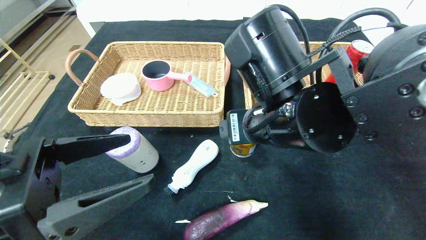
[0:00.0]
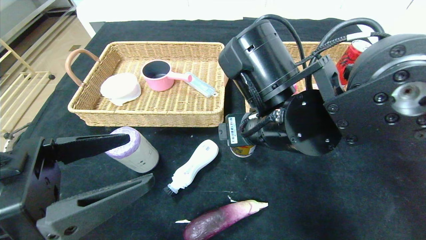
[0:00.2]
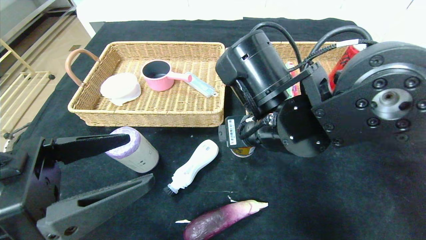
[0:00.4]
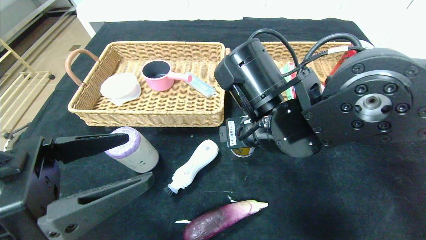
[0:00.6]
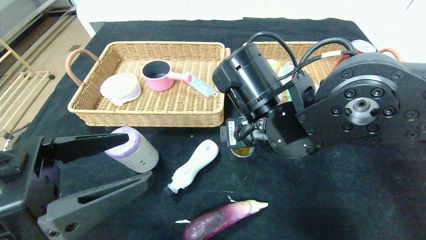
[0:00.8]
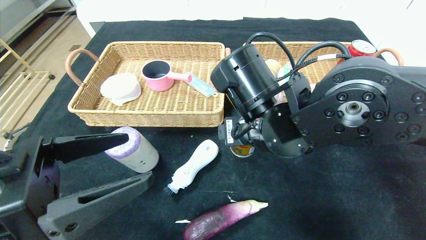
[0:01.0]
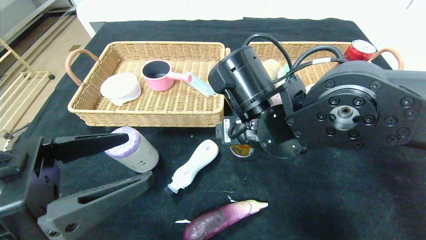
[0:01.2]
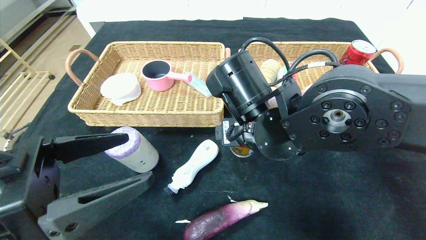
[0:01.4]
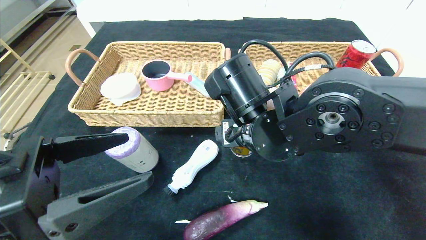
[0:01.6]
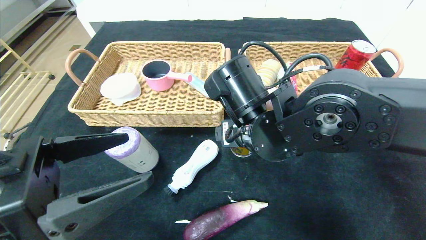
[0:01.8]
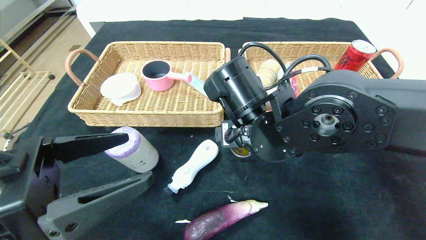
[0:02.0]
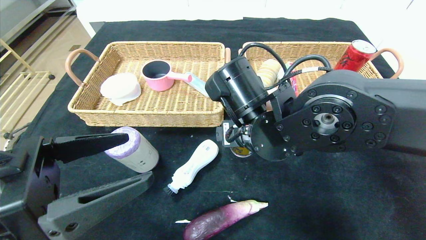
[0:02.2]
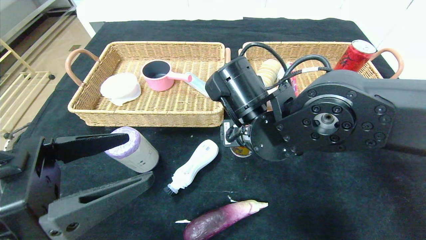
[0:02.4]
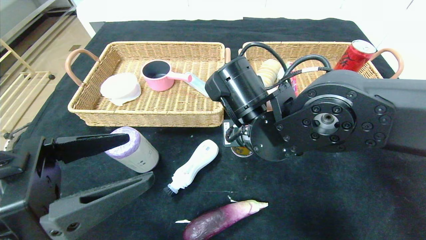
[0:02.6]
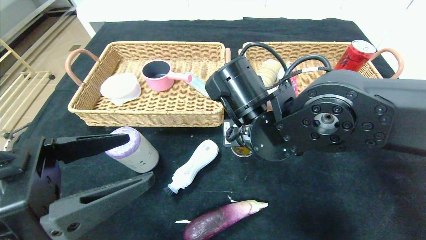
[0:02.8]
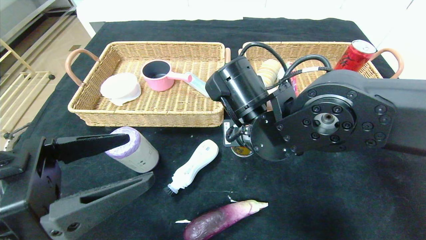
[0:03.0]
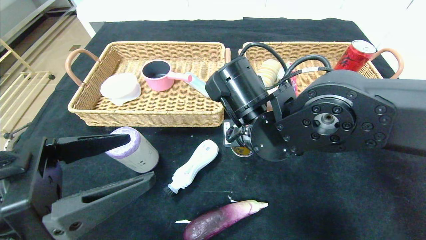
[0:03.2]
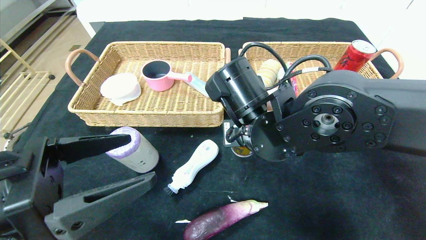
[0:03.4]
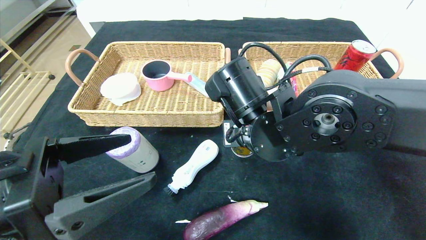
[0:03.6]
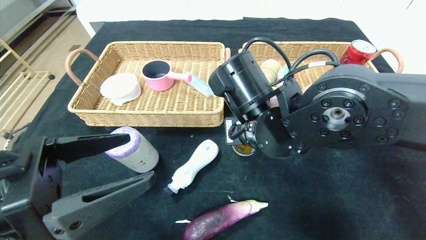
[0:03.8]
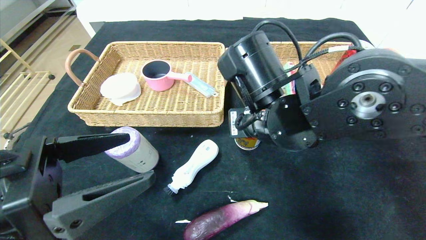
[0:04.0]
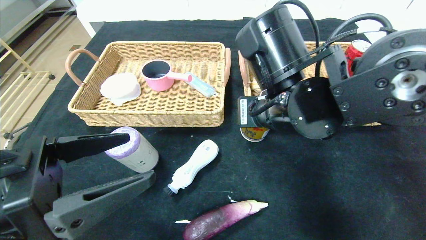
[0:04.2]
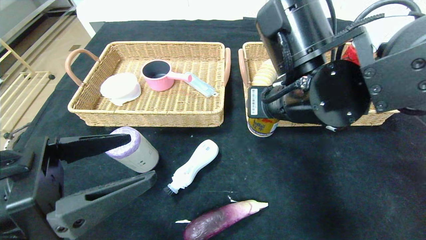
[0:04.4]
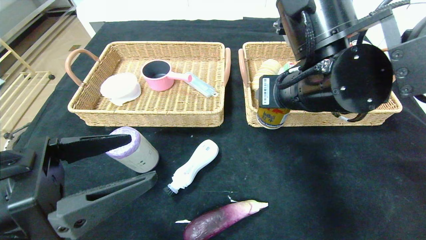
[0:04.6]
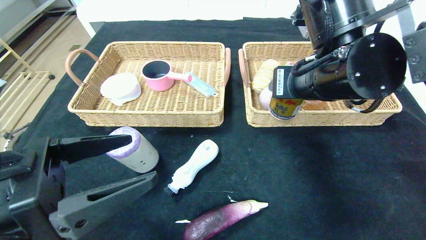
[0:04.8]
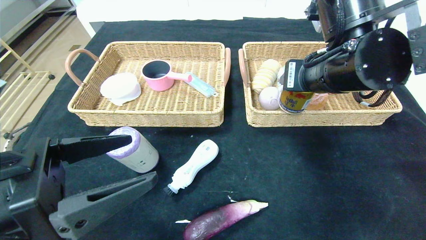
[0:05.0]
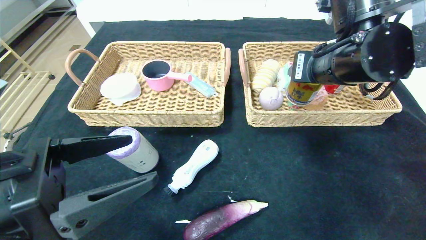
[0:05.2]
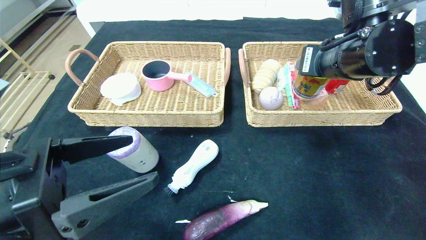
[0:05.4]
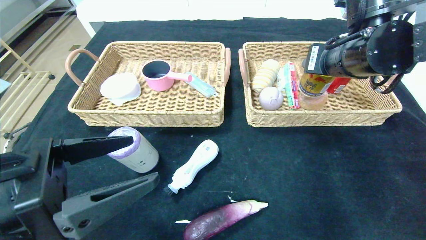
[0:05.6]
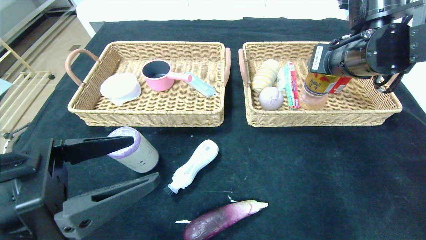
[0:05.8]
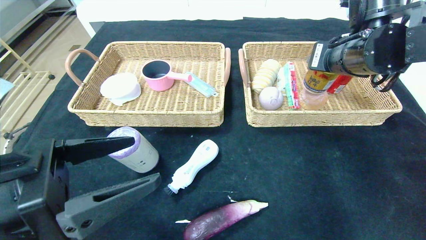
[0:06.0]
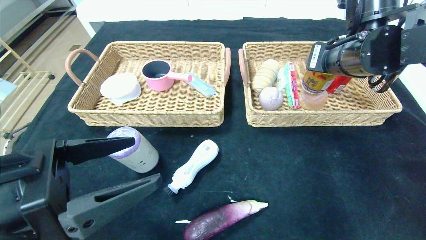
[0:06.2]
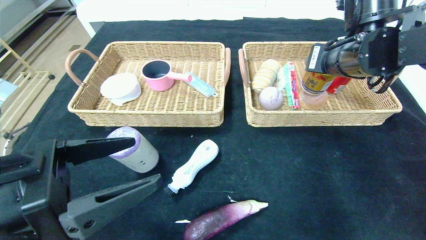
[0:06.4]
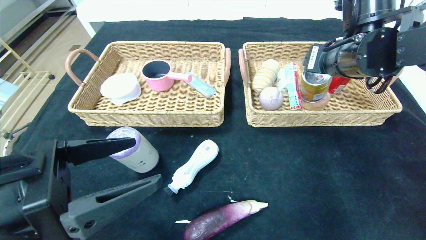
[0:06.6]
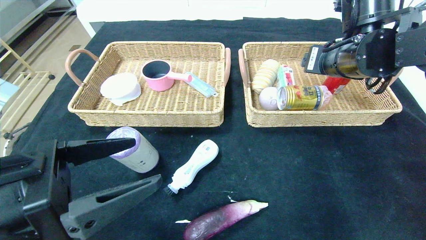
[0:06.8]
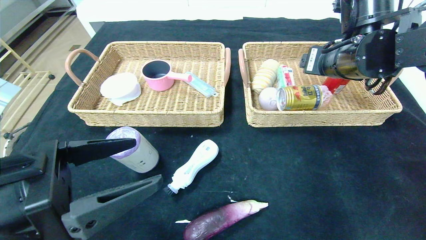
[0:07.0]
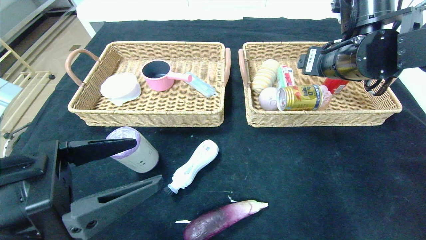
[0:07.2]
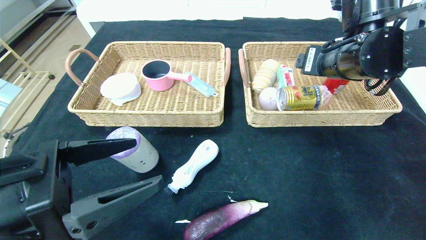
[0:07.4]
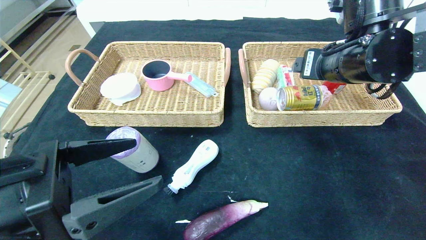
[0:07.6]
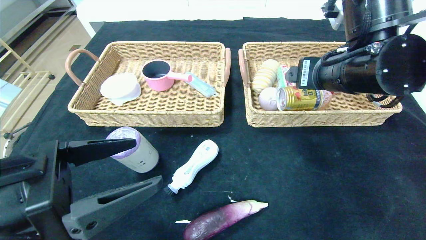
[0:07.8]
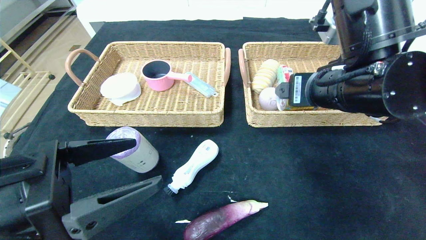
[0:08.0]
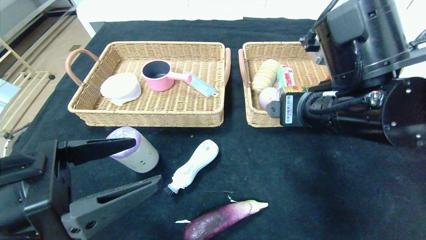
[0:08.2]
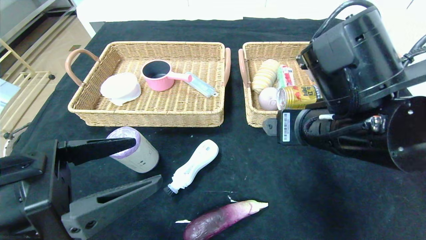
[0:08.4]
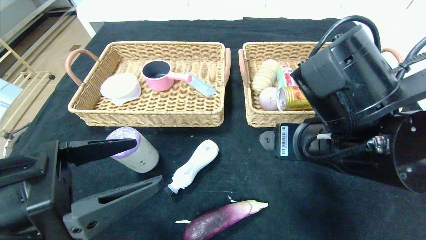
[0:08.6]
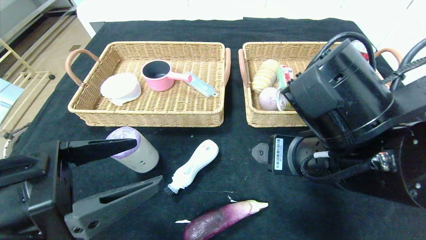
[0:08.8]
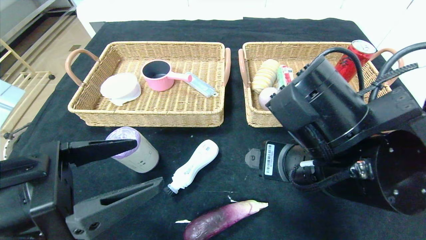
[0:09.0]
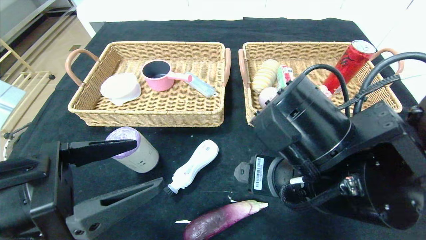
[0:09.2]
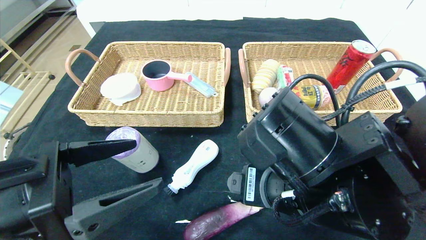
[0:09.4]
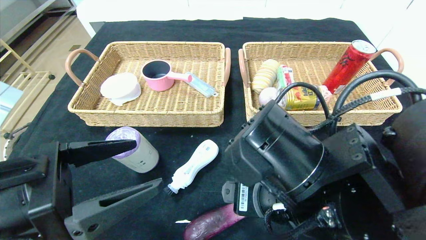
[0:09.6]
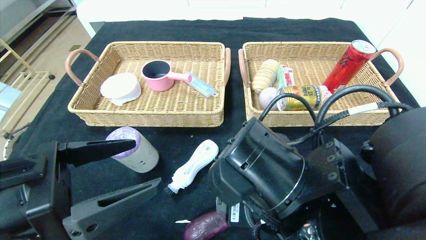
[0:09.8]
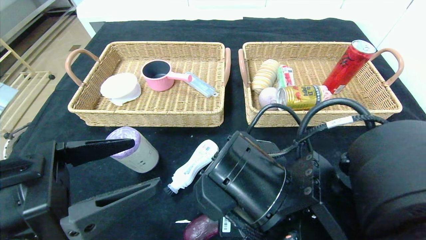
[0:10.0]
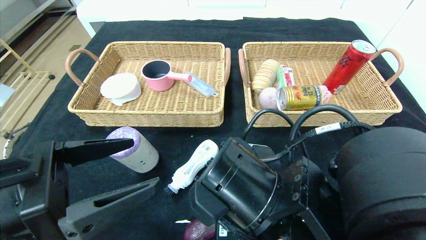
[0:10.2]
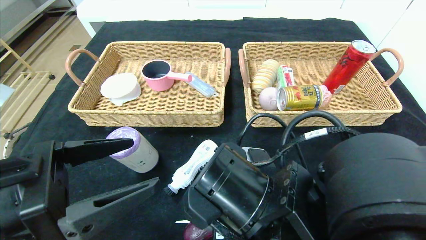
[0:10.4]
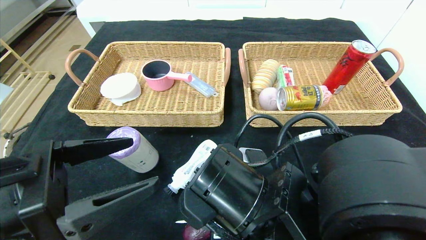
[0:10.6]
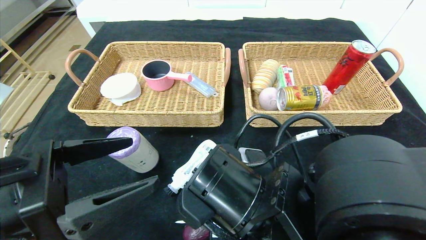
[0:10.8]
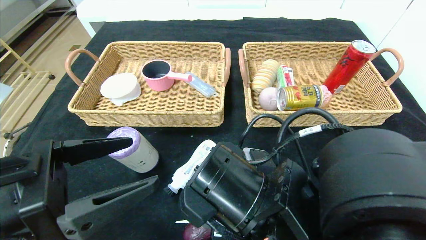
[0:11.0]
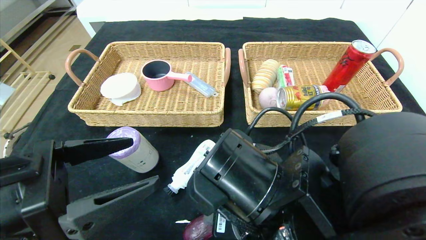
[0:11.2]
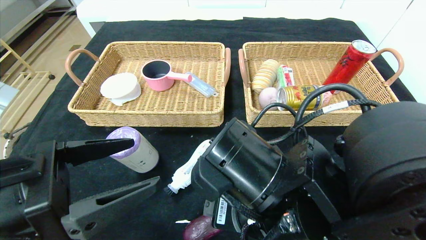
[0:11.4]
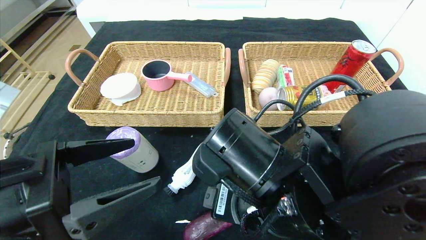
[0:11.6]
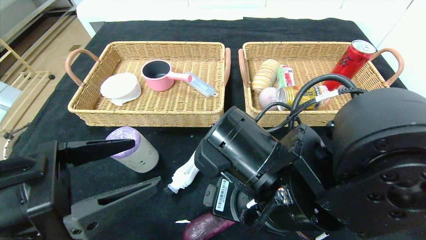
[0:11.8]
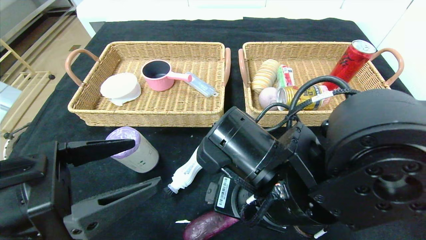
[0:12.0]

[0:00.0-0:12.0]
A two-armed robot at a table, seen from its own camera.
Step, 0.4 to 8.6 s: Pick up the red bull and put it in the right basket.
0.0 to 1.6 s: The right gripper ends up roughly 5 cm from where it was.
1.6 to 3.0 s: Neither gripper changes place.
3.0 to 4.4 s: The right gripper goes approximately 5 cm upward.
4.4 to 6.0 s: The right gripper moves to the right and forward, approximately 15 cm.
6.0 to 7.6 s: The grippers move only a little.
7.6 to 9.0 s: The right gripper heads backward, downward and to the left, covering some 15 cm.
9.0 to 10.4 s: The right gripper moves to the left and downward, about 10 cm.

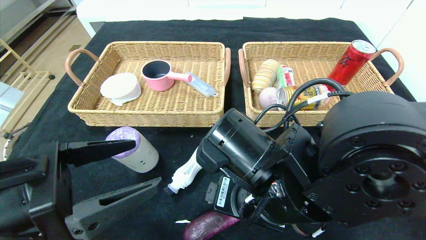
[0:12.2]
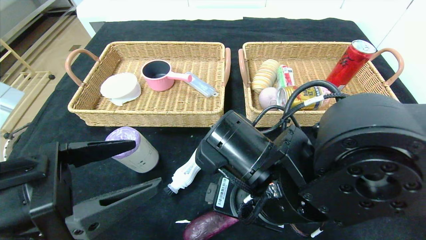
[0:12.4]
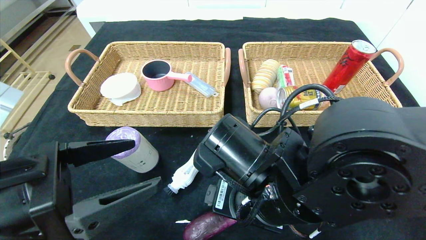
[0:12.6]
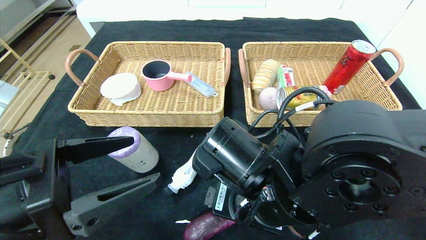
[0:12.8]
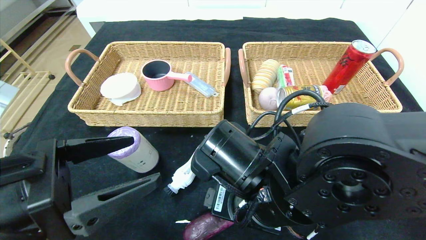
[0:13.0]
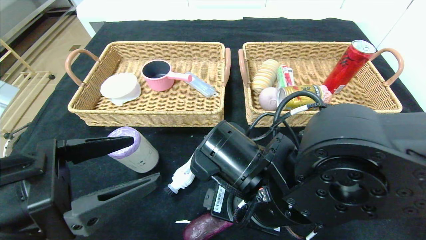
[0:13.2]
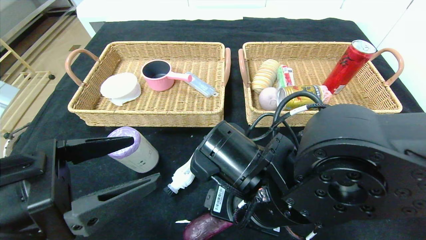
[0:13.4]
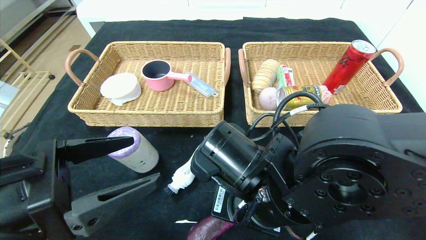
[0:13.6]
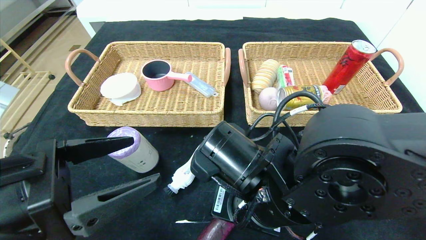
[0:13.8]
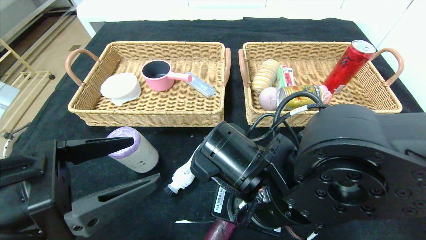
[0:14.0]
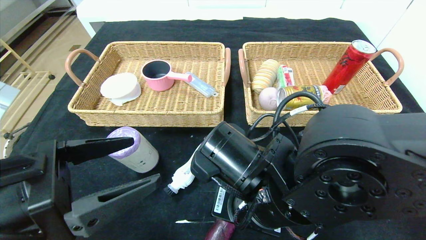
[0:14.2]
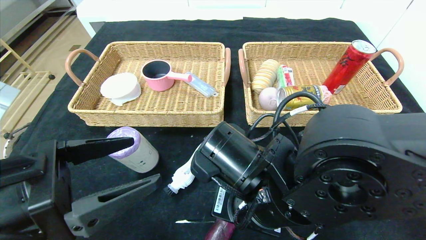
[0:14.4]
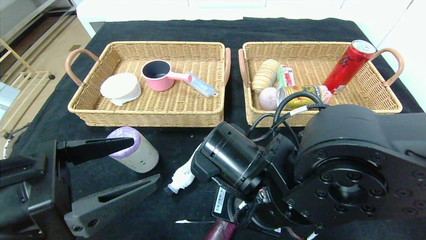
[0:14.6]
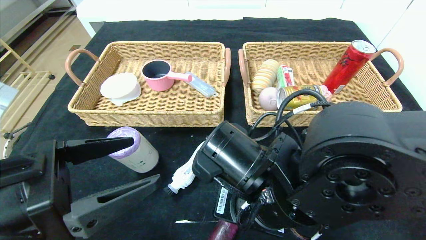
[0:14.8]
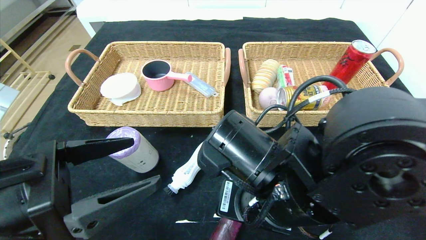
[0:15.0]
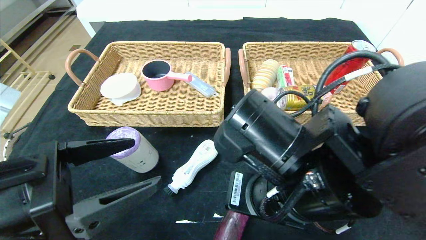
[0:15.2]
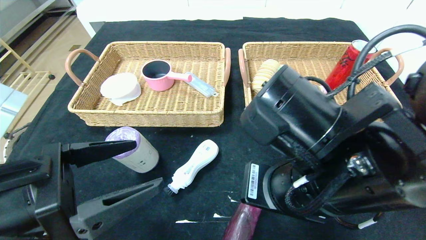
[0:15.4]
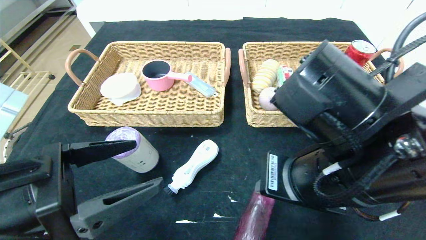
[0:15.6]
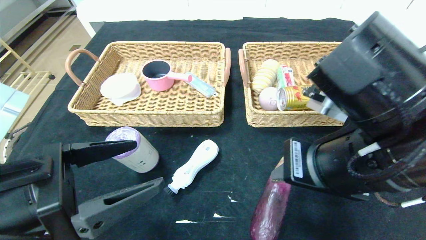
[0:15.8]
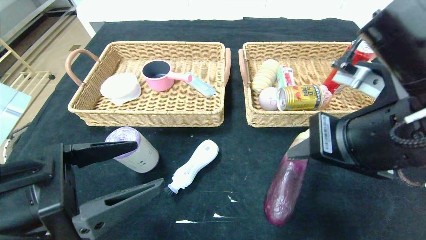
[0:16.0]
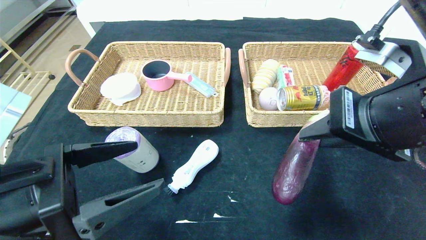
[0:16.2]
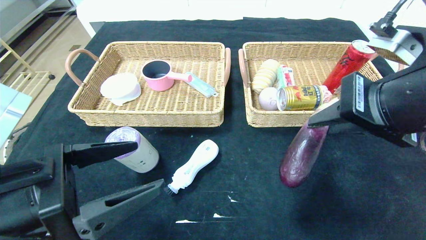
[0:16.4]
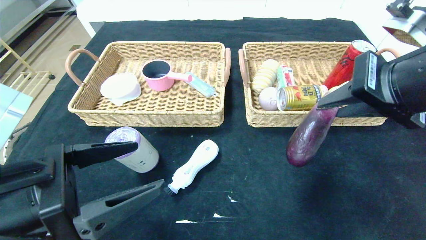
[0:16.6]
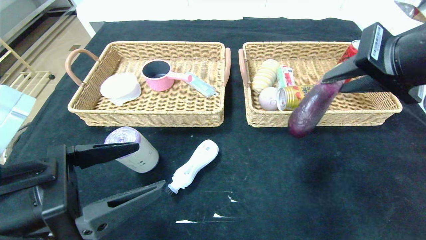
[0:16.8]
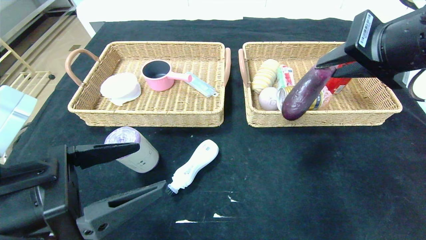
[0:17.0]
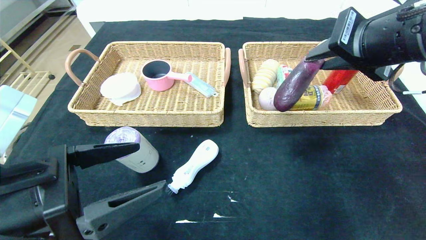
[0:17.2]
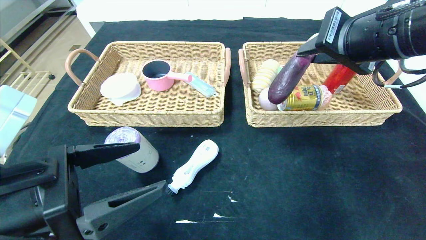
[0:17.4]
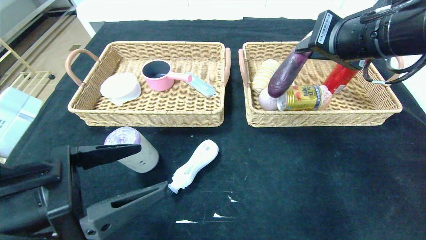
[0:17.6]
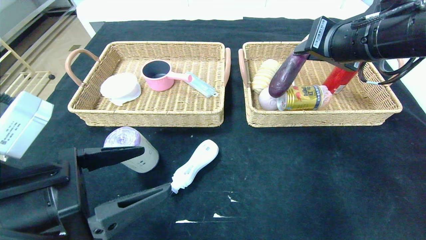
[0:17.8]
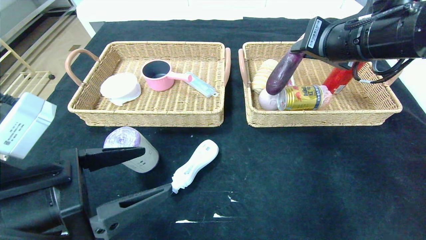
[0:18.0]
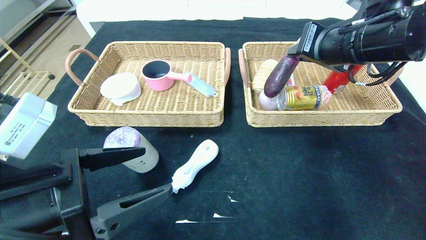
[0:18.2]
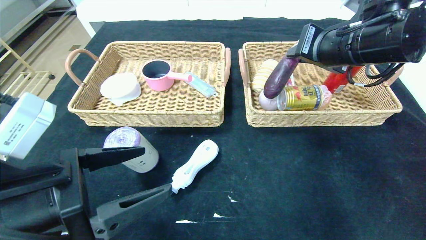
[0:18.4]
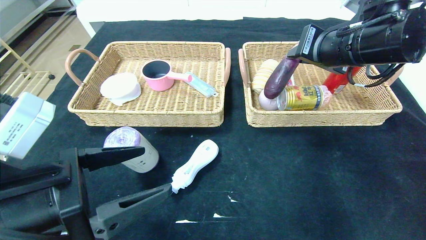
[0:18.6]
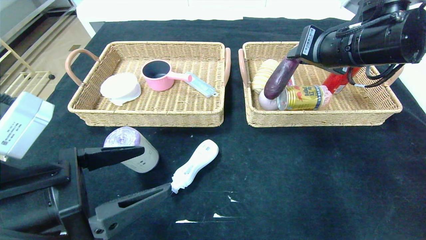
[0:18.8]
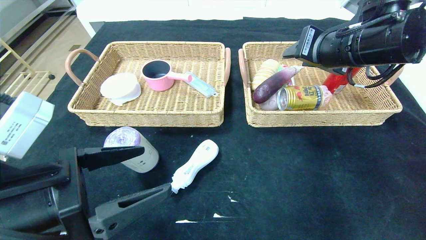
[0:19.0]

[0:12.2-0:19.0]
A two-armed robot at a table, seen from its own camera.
12.2 to 13.6 s: The right gripper closes its fingers.
13.6 to 15.0 s: There are only small adjustments of the grippers.
15.0 to 16.2 s: The right gripper shifts about 15 cm to the right and upward.
16.2 to 17.6 s: The right gripper travels forward by about 10 cm.
17.6 to 19.0 s: The grippers move only a little.
